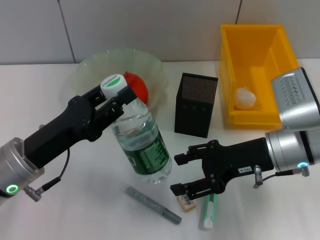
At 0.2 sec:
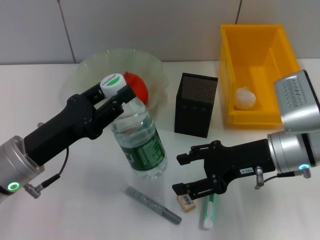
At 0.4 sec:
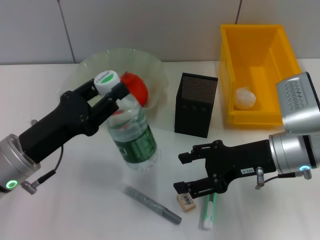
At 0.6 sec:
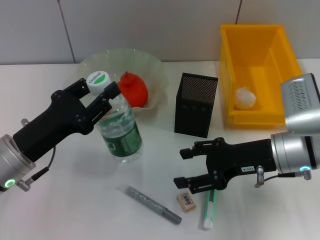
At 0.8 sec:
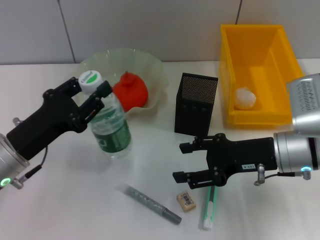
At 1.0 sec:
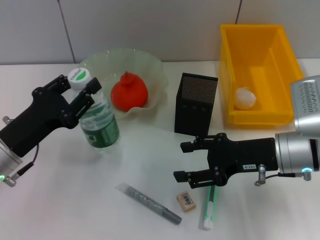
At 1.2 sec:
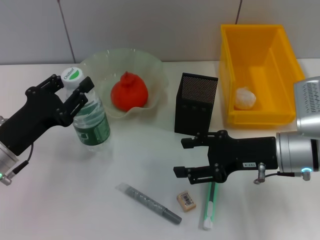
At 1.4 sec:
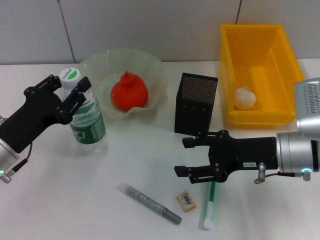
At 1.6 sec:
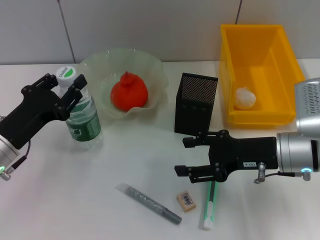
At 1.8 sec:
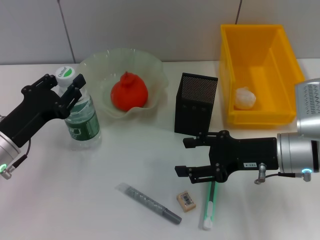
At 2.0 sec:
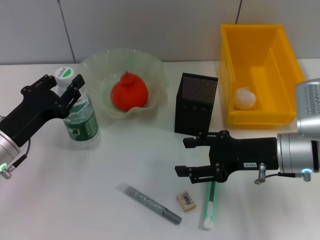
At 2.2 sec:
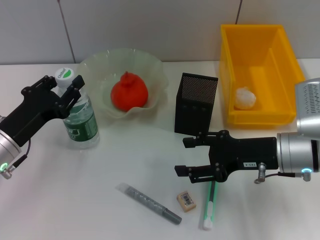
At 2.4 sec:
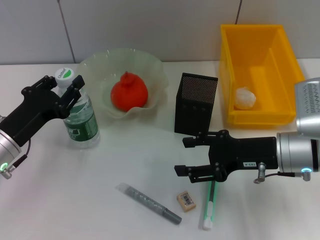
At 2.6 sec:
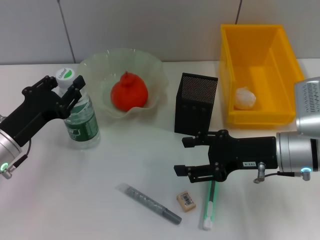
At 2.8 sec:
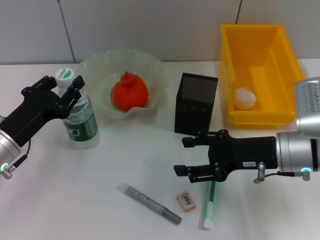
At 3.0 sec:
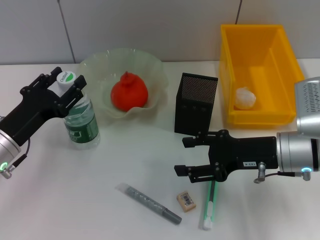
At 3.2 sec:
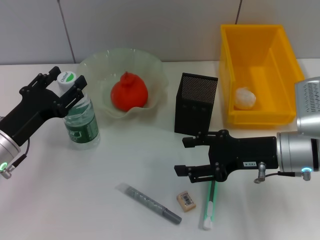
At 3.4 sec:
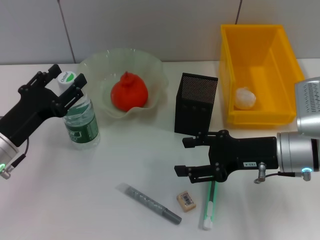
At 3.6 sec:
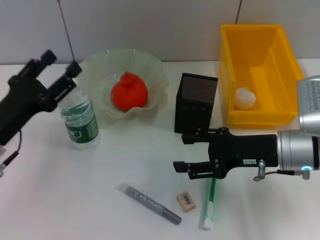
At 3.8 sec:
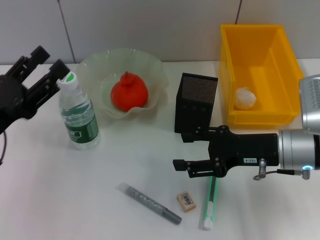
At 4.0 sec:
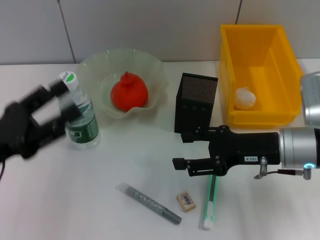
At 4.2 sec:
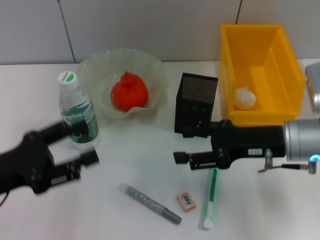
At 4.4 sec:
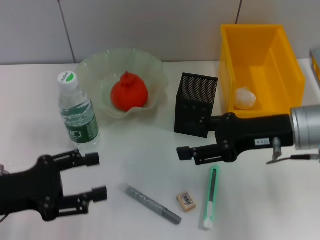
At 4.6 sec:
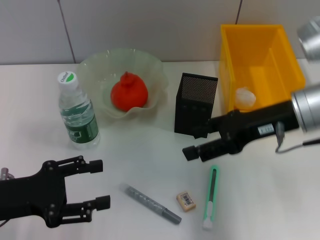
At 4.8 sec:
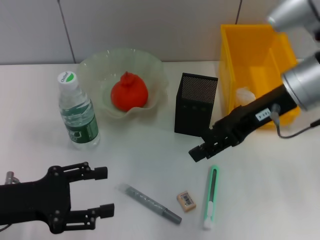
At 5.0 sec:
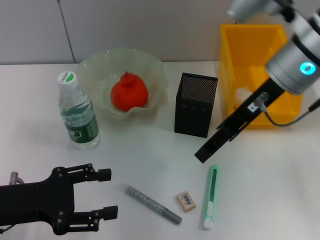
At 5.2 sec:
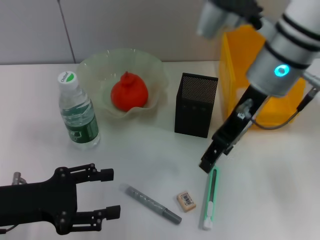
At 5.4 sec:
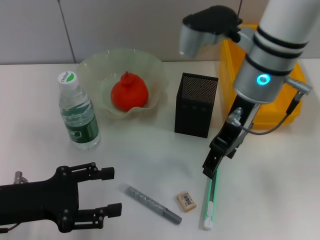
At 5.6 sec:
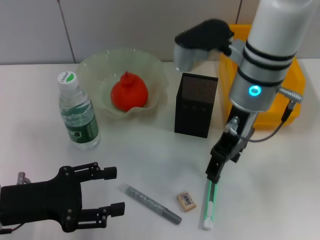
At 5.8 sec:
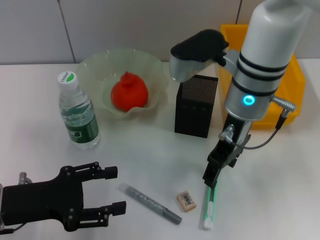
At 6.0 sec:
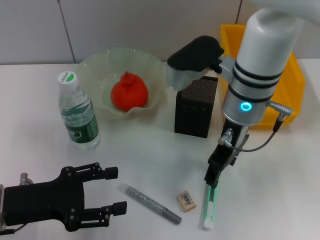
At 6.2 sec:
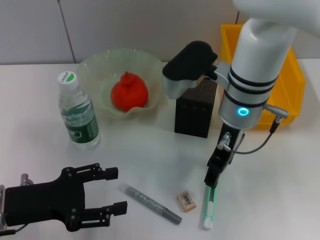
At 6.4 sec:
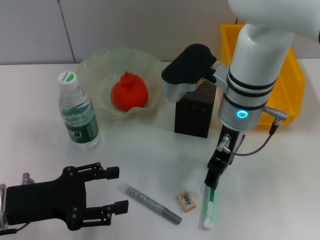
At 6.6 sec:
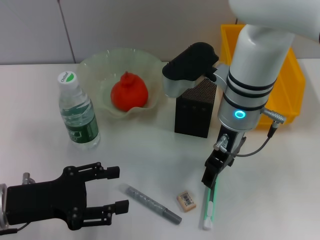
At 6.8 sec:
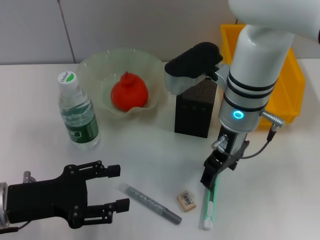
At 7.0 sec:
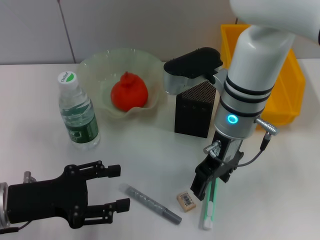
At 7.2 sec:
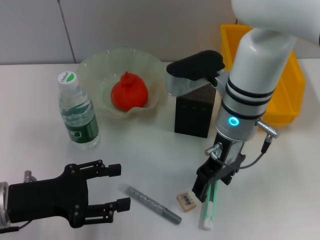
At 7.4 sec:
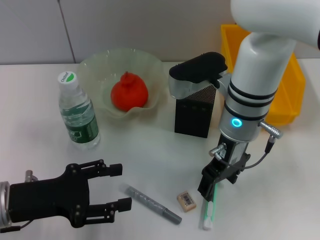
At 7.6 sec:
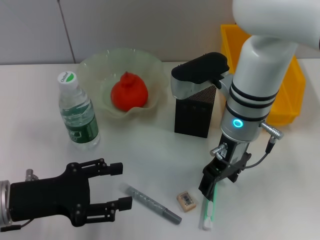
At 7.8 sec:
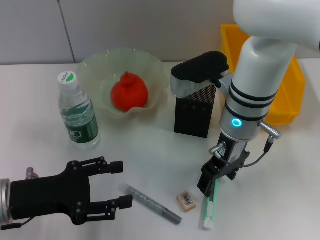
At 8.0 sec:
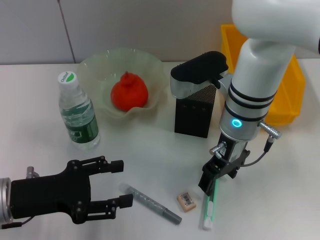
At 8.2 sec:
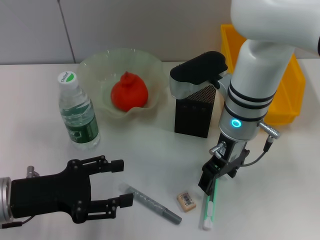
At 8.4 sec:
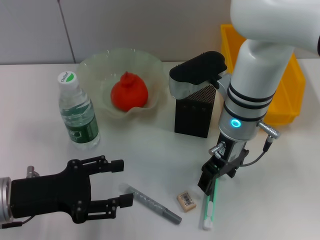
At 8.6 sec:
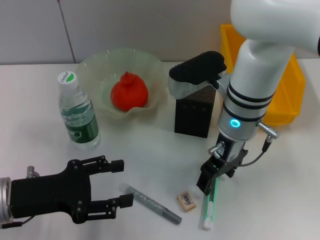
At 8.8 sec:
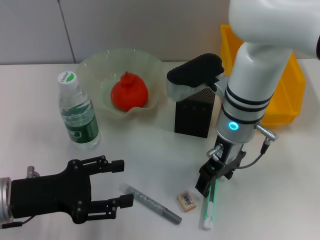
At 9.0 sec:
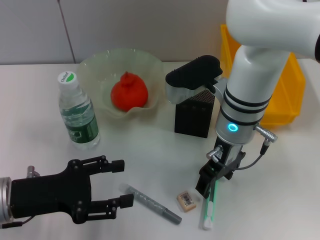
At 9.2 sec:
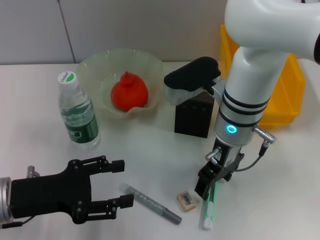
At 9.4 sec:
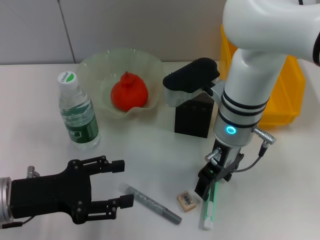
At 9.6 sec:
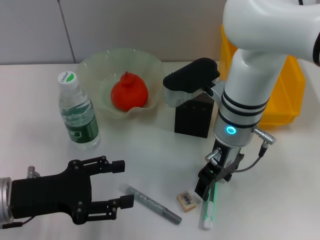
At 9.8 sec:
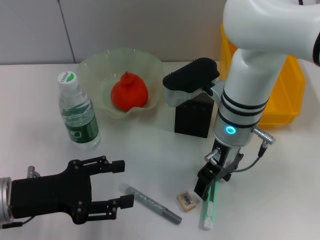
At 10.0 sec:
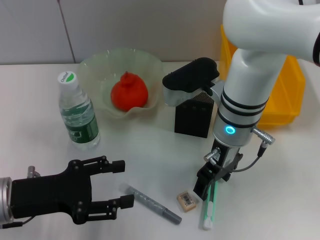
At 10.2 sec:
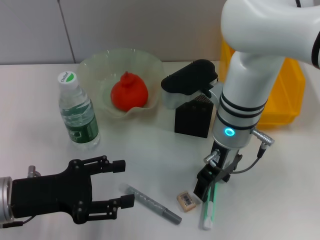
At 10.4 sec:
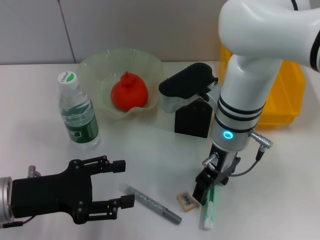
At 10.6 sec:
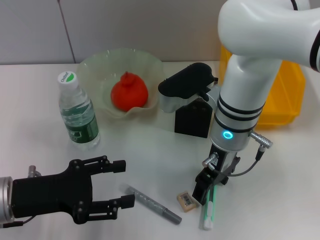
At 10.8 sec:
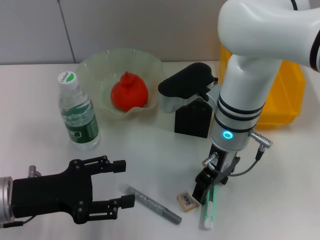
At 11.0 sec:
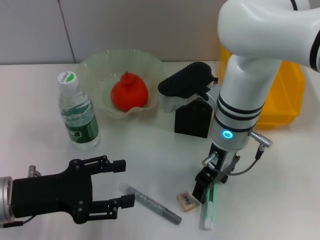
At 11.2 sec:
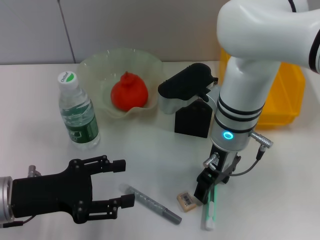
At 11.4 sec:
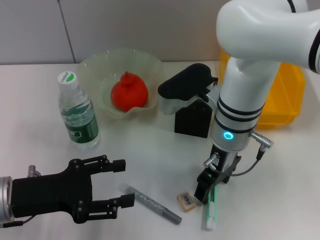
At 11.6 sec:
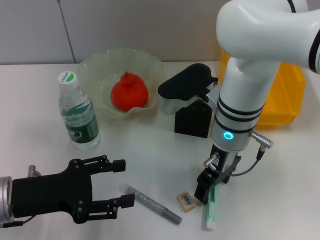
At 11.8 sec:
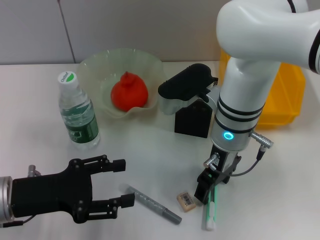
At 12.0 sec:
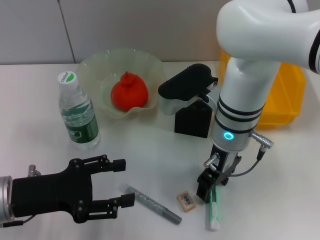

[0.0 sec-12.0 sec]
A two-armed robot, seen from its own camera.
Step, 0.2 sec to 3.2 sec: Place the water bottle on the table with the left hand.
0.0 sec to 1.6 sec: The left gripper changes place by about 5 cm.
1.6 sec to 3.0 sec: Both grippers stay about where they are.
3.0 sec to 4.4 sec: The left gripper shifts some 5 cm backward, and opens up. The right gripper travels upward by about 5 cm.
4.4 sec to 6.0 sec: The right gripper goes roughly 15 cm to the left and forward.
6.0 sec to 7.6 sec: The grippers make only small movements.
7.6 sec to 9.0 sec: Neither gripper changes place.
9.0 sec to 12.0 sec: Both grippers stay about where they are.

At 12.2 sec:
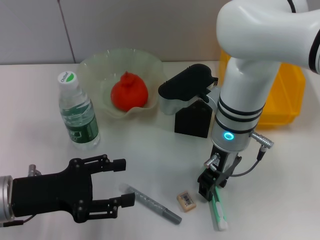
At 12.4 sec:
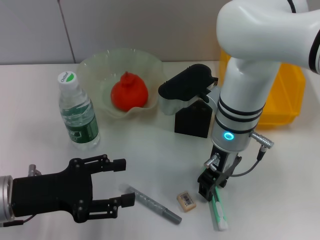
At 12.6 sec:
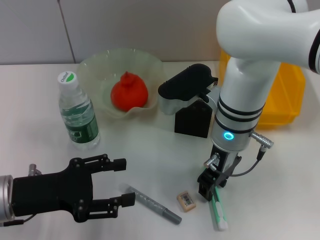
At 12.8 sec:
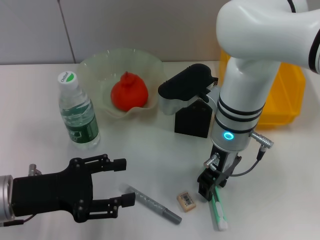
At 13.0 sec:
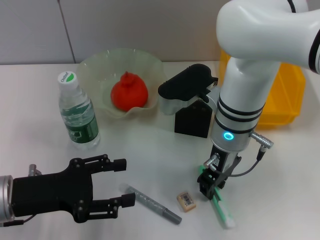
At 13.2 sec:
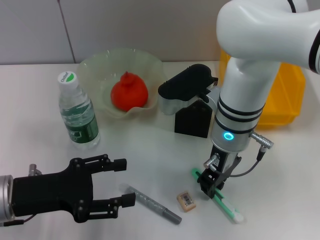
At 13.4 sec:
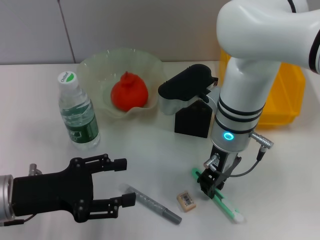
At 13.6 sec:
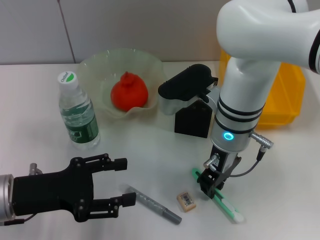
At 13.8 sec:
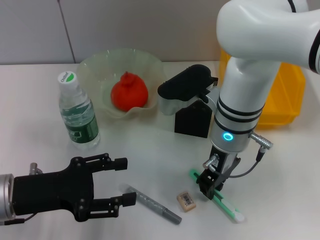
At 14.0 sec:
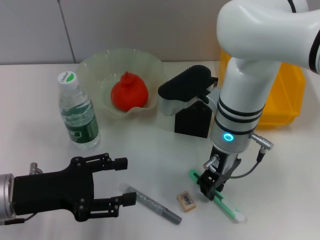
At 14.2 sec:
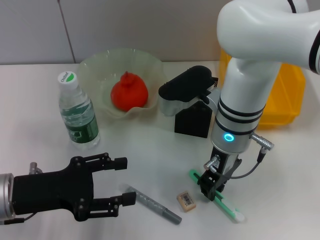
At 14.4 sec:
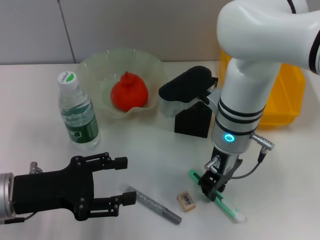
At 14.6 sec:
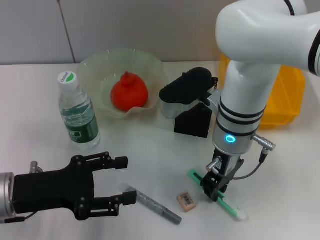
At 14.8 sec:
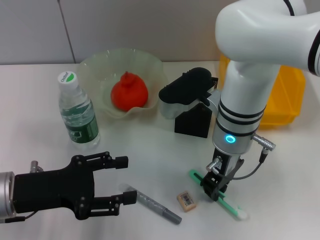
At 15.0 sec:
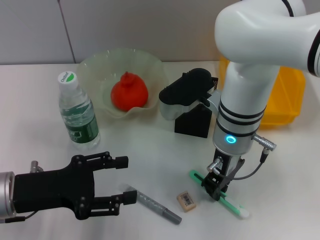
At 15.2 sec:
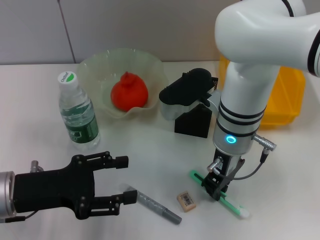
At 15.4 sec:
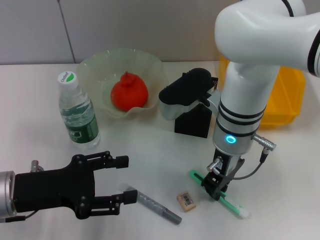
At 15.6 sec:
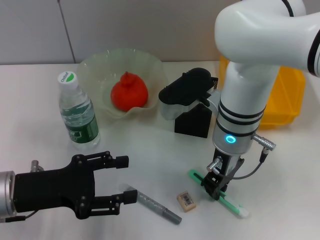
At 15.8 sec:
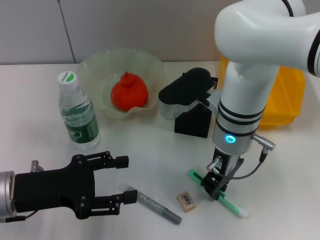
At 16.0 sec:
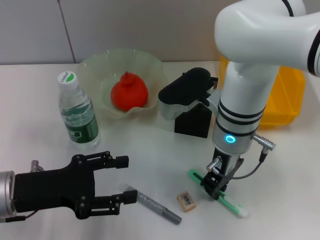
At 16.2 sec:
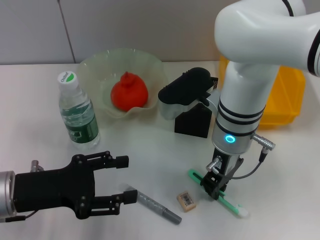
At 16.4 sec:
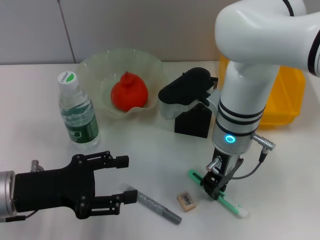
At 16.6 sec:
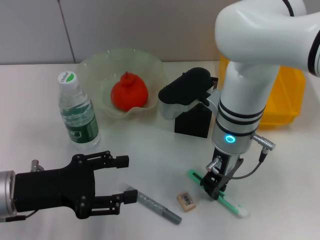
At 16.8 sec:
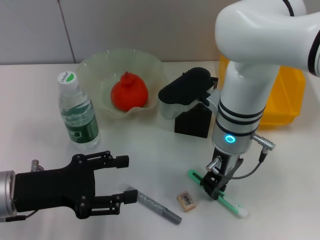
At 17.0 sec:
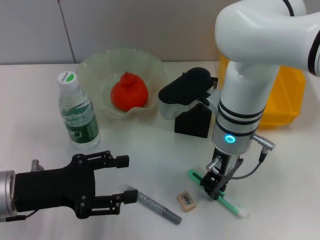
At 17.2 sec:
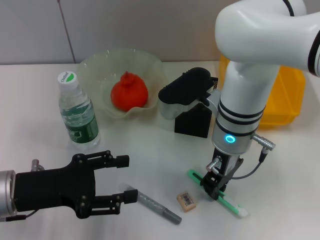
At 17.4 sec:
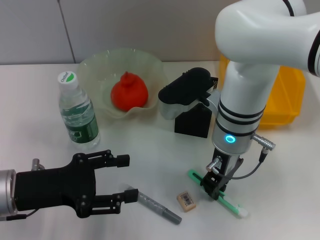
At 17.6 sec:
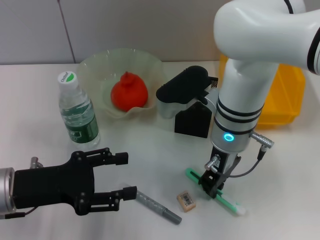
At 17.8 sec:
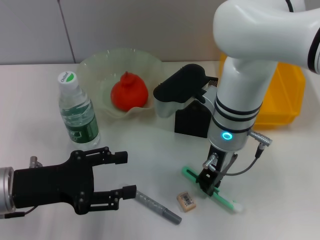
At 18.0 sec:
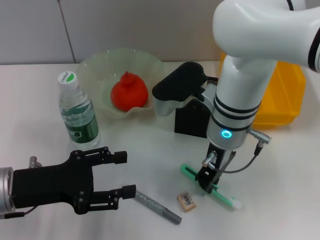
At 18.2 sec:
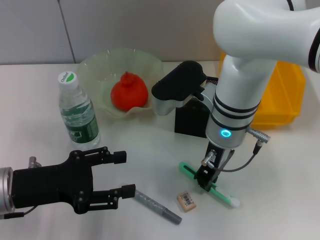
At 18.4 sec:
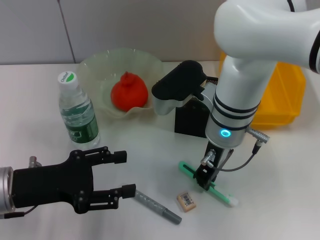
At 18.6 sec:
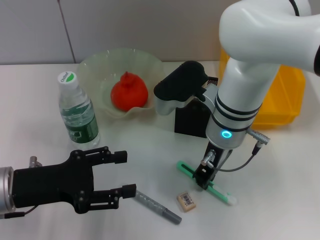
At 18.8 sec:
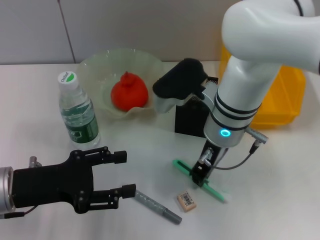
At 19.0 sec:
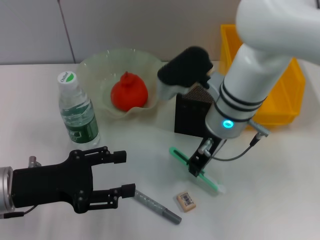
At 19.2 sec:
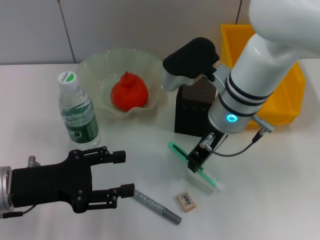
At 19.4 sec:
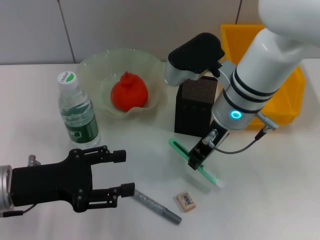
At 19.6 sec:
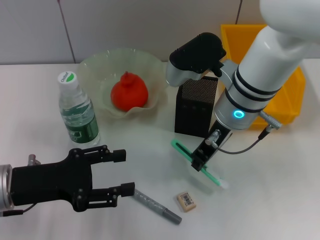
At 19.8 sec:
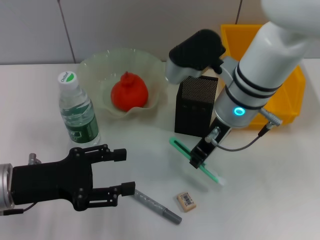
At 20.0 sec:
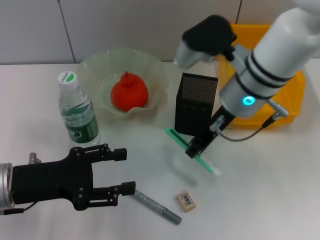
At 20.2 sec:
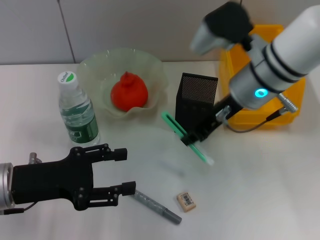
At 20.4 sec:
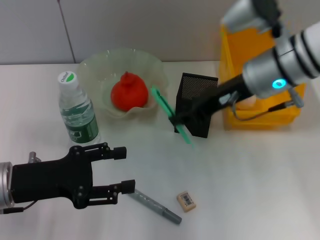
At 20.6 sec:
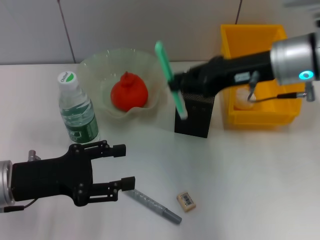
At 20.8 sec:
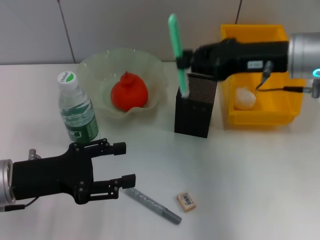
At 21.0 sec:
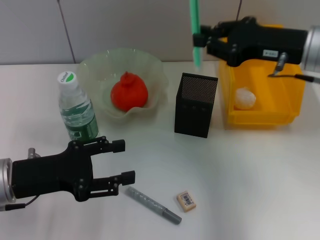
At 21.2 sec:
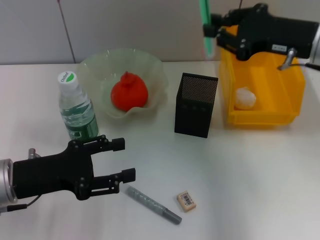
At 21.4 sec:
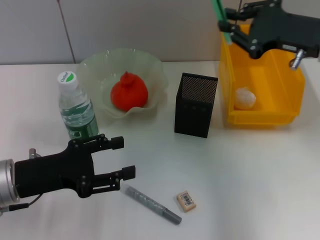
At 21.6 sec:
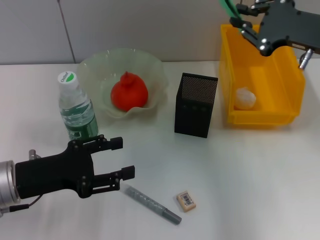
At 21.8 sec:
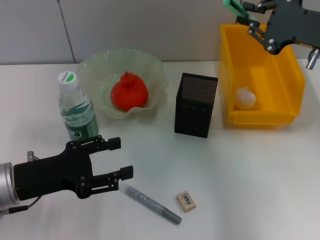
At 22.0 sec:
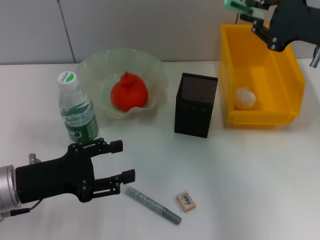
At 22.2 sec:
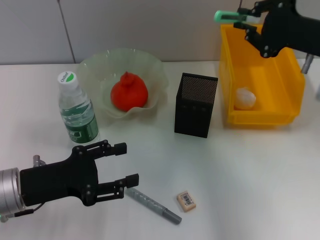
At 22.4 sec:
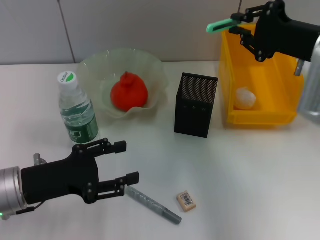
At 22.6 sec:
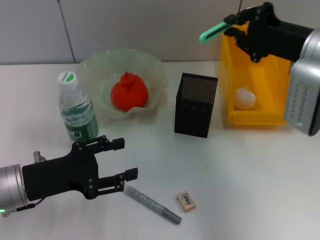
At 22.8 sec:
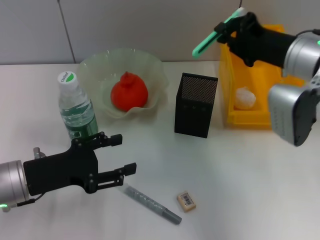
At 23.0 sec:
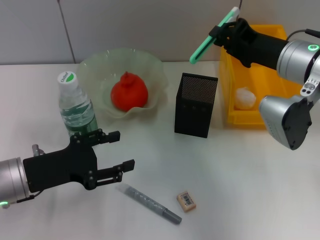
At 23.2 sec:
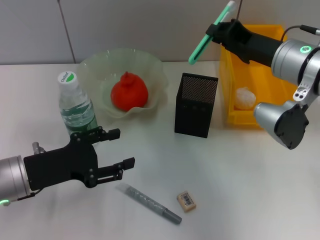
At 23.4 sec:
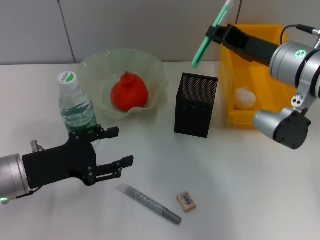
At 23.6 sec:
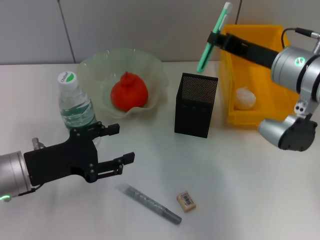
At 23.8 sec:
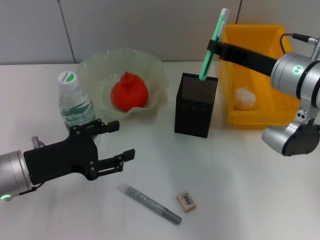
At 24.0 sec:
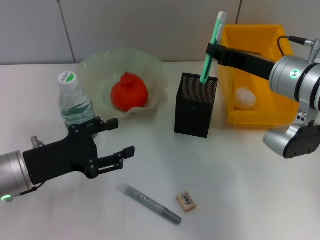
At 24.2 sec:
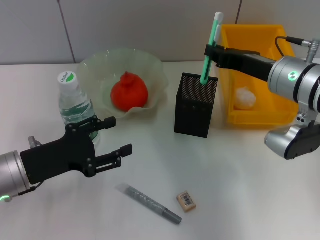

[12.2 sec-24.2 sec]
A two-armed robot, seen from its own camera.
Step, 12.2 sec to 18.2 sec: Grab the blue utility knife with the right hand.
12.2 sec to 13.8 sec: The right gripper closes.
13.8 sec to 16.6 sec: Both grippers stay about where they are.
16.6 sec to 18.2 sec: The grippers stay close to where they were, moving slightly.
19.8 sec to 21.2 sec: The right gripper goes roughly 15 cm to the right.
22.6 sec to 24.2 sec: The right gripper ends up roughly 5 cm from where it was.
